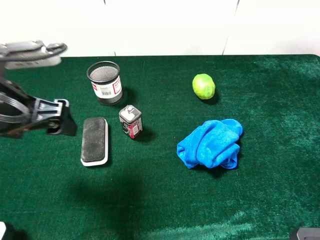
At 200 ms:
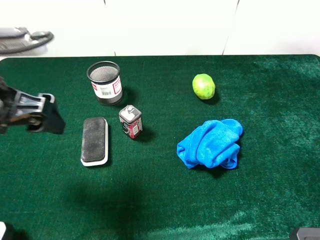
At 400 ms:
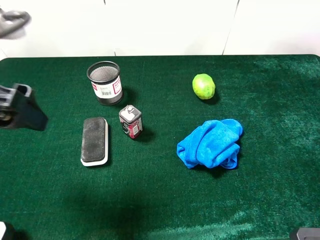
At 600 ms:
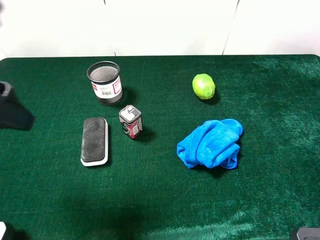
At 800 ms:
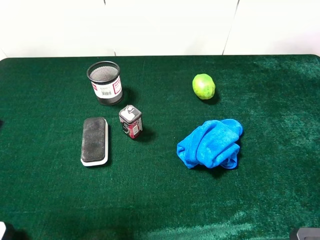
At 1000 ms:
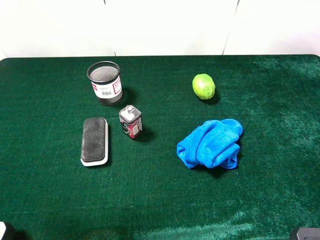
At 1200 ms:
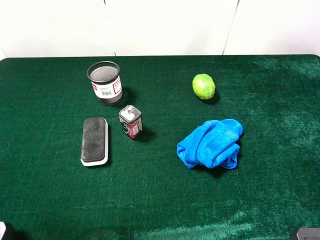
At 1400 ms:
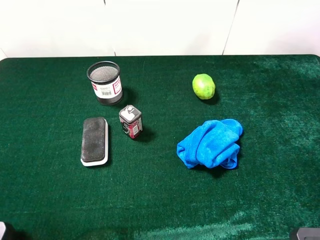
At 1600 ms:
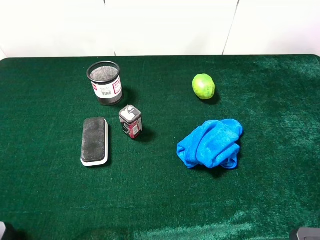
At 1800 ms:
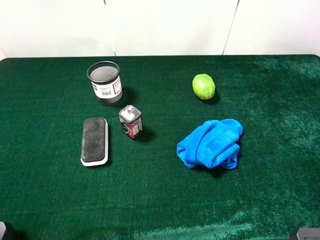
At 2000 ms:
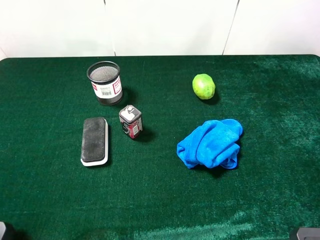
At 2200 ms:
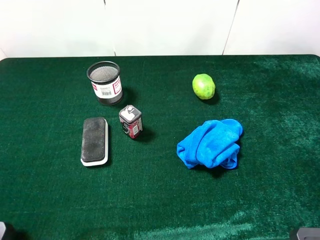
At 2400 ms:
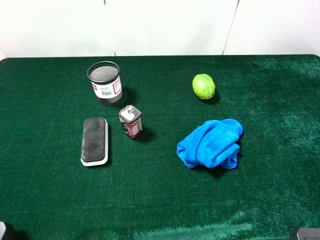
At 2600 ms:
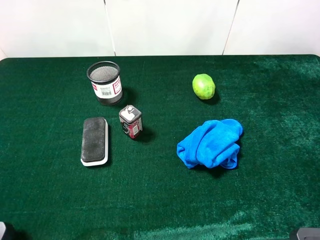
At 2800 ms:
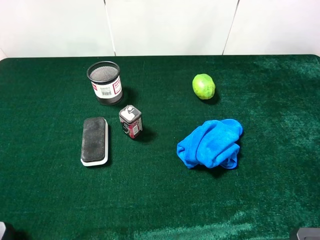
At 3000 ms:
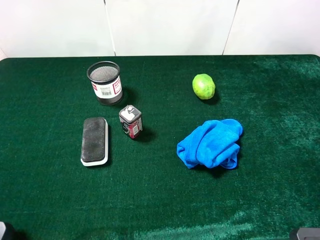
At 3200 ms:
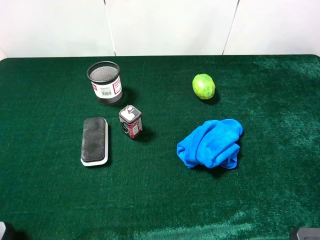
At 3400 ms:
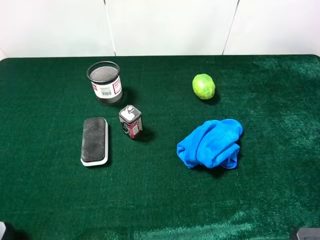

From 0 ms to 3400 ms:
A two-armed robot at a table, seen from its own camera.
Task of the whole recording: the gripper move the object.
From 0 ms to 1600 ms: The left gripper moves backward, to the left and upward, roughly 15 cm.
